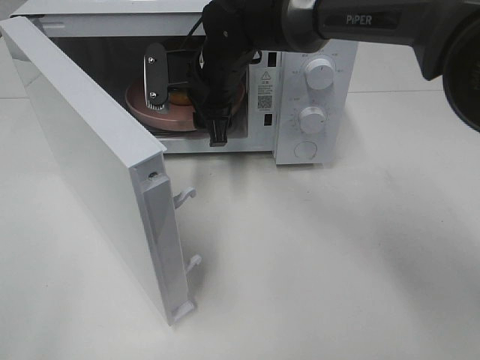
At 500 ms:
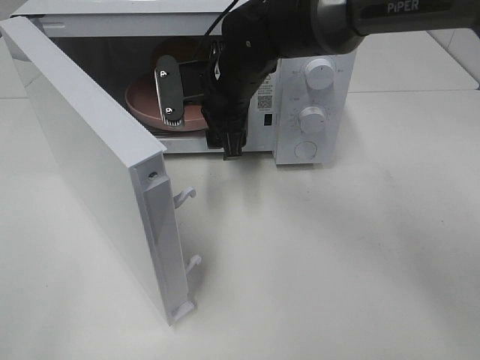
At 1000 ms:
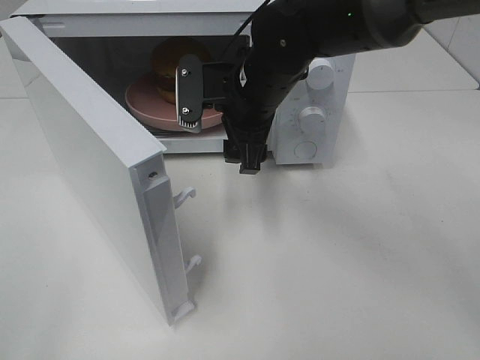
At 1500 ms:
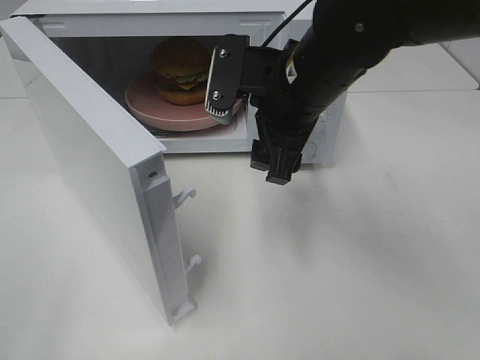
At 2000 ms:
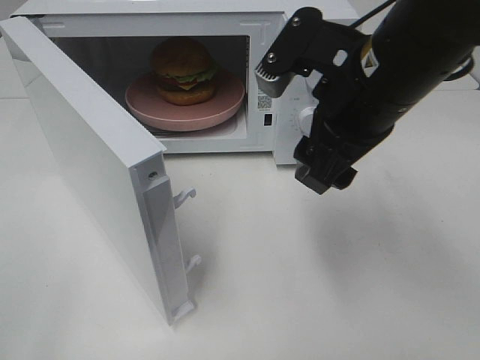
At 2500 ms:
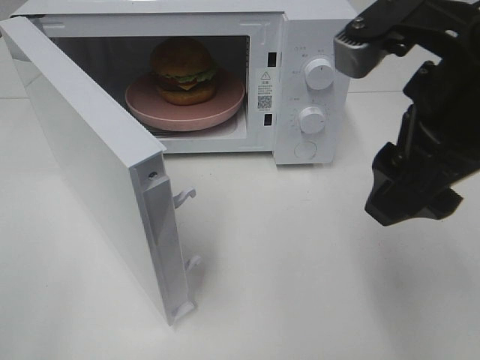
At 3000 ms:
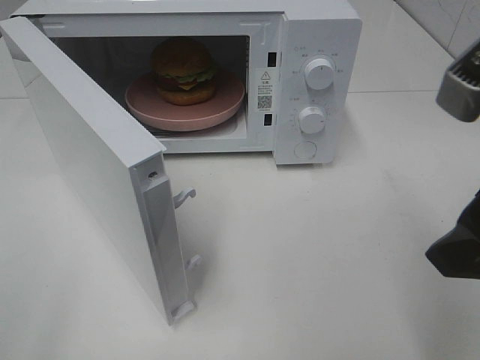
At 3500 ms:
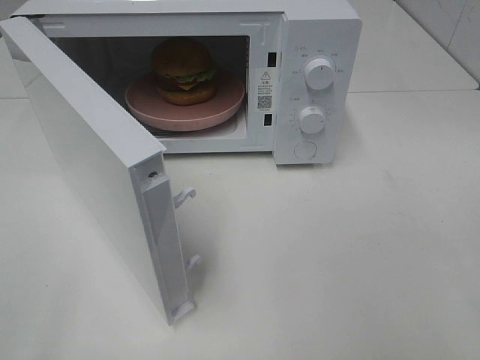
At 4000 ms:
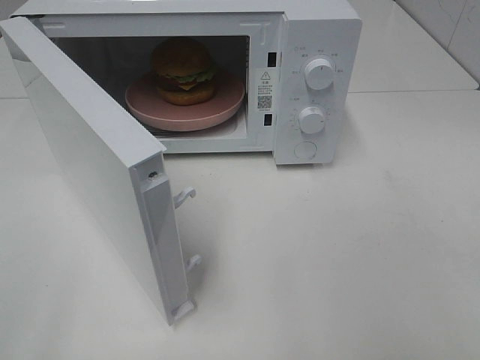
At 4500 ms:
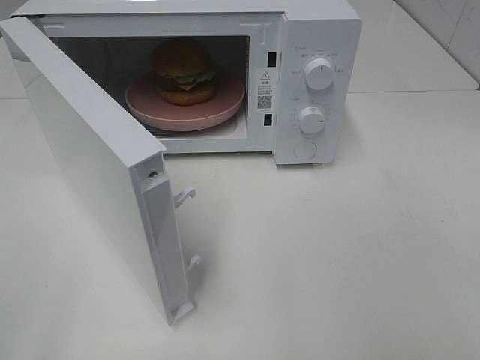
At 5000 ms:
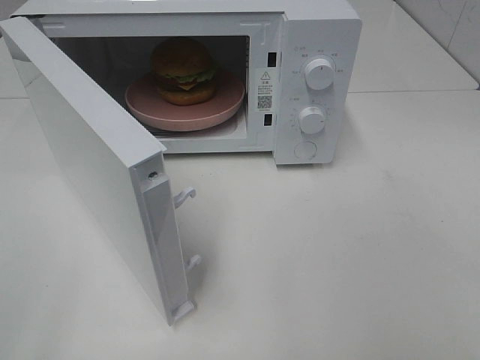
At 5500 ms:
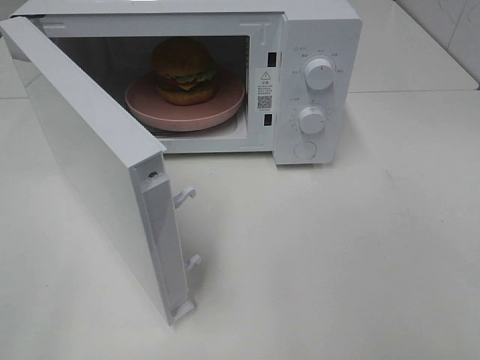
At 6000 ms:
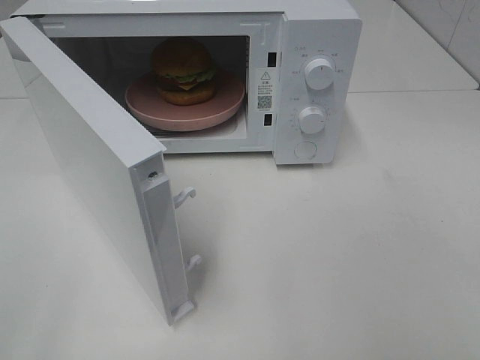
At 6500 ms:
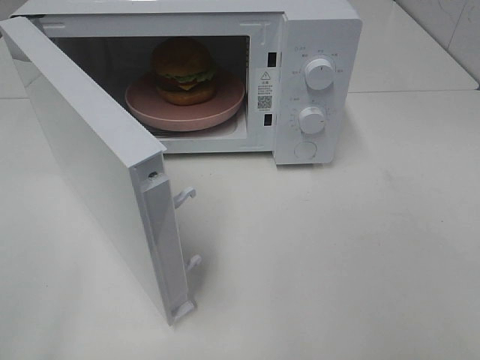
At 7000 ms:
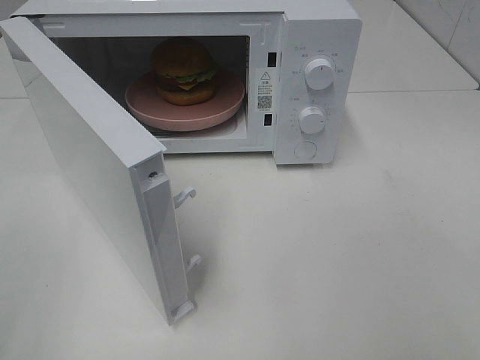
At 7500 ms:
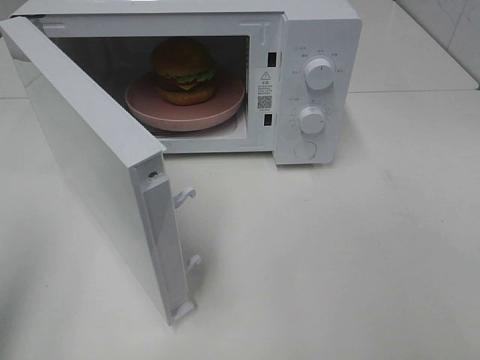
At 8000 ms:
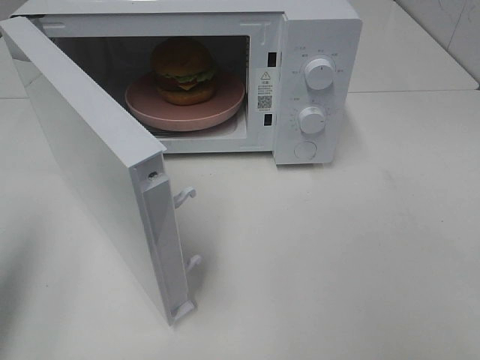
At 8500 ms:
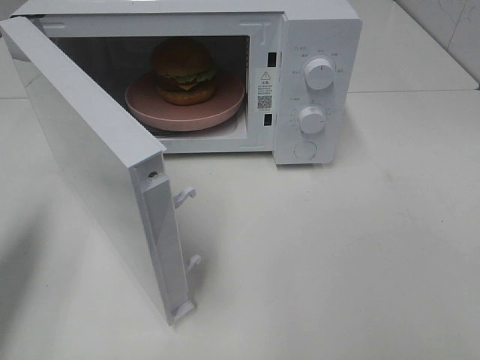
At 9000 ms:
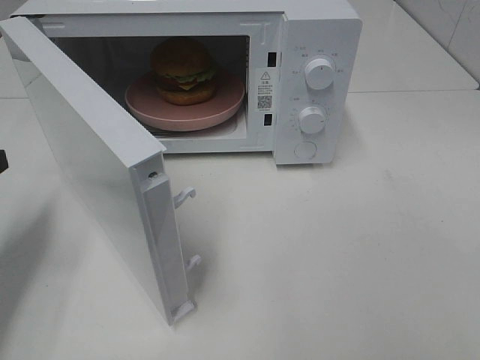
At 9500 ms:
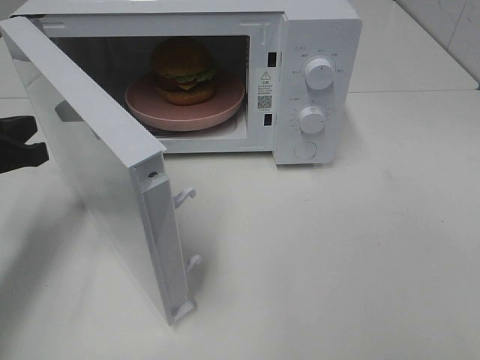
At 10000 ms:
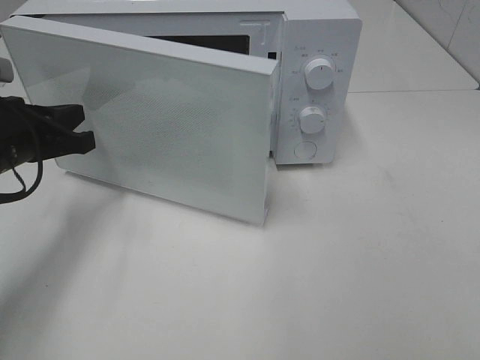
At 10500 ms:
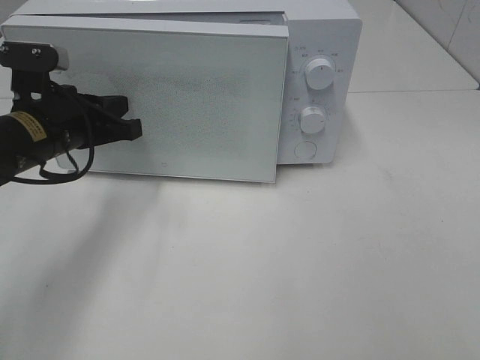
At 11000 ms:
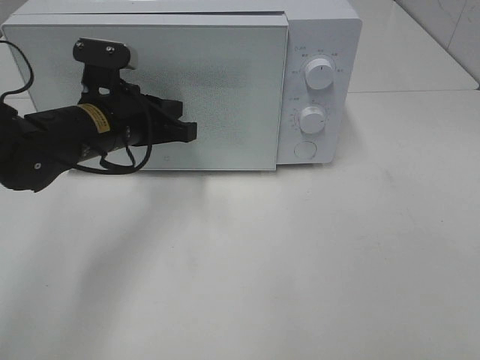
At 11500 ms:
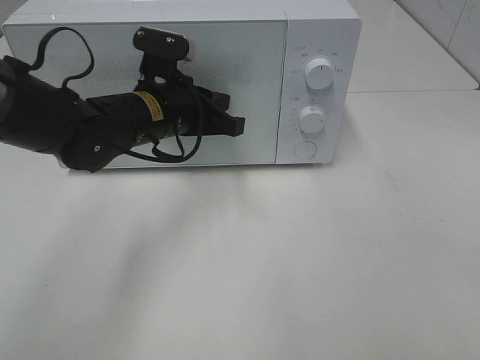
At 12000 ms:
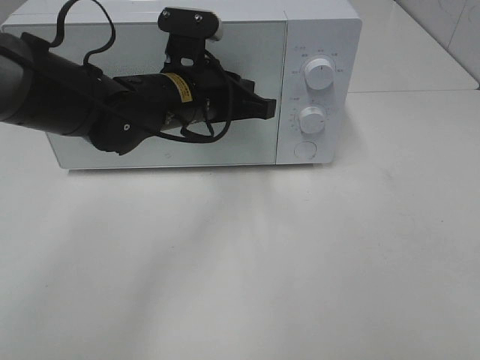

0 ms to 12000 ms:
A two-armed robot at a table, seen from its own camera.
Task of the whole recording: Heat the burger.
Step, 0 ms to 12000 ms: Left hand: close the microwave door.
0 ms to 2000 ms: The right gripper heads backward, to the right and upward, covering some 25 cm.
2000 ms to 4000 ms: The right gripper travels backward and to the right by approximately 30 cm.
6000 ms to 8000 ms: The left gripper shifts some 15 cm forward, and closes its fingers.
8000 ms to 10000 ms: The left gripper is displaced forward, downward and to the right by roughly 20 cm.
10000 ms to 12000 ms: The left gripper travels to the right by roughly 20 cm.

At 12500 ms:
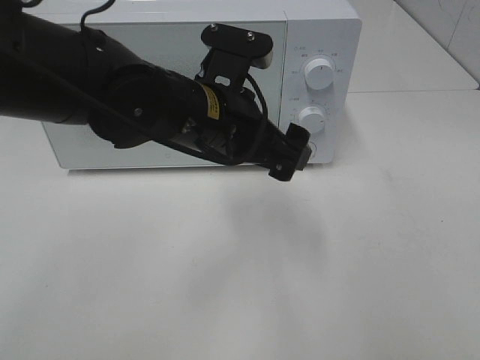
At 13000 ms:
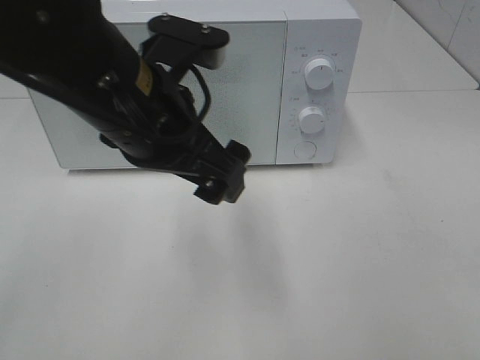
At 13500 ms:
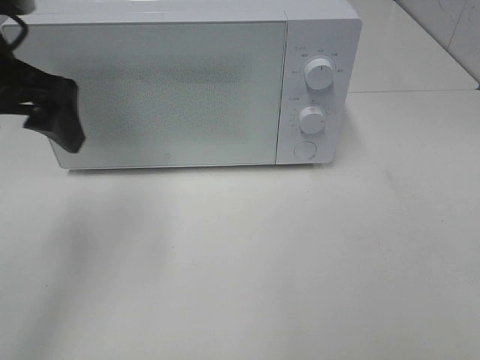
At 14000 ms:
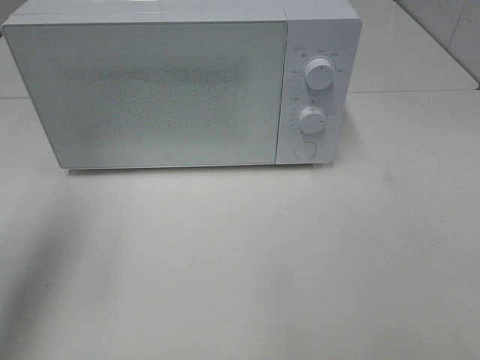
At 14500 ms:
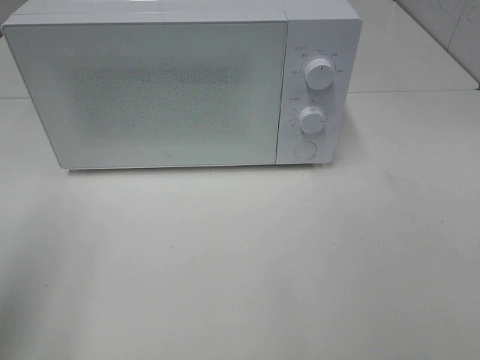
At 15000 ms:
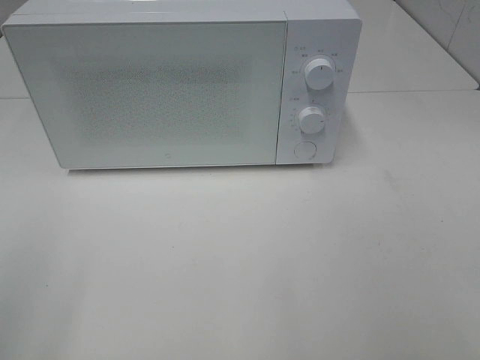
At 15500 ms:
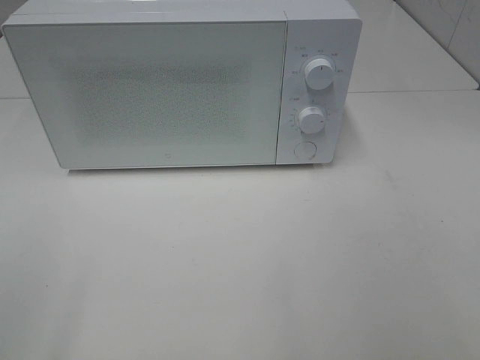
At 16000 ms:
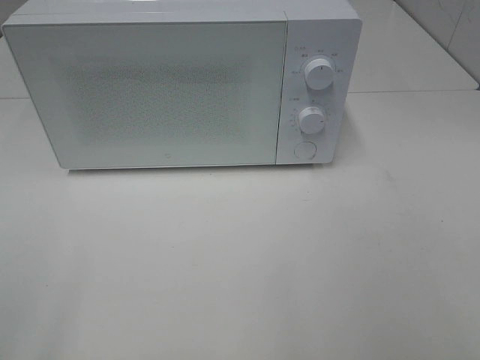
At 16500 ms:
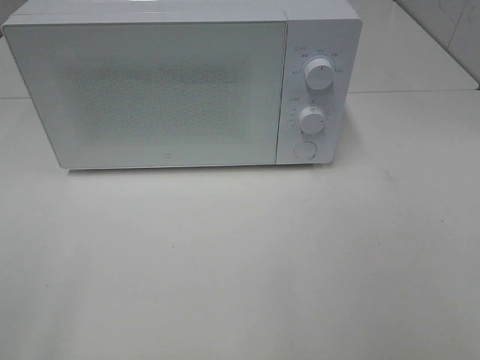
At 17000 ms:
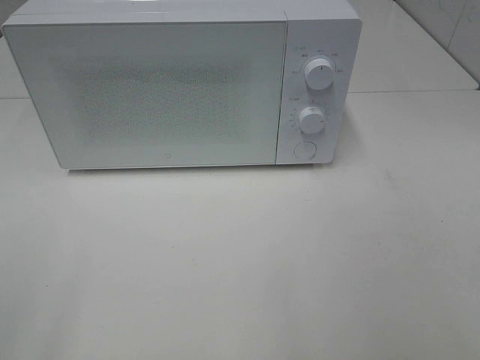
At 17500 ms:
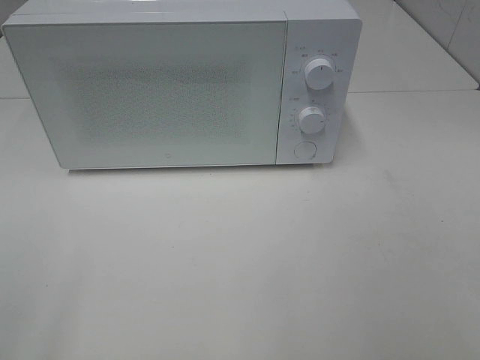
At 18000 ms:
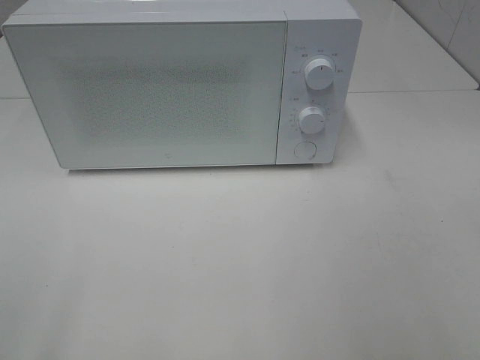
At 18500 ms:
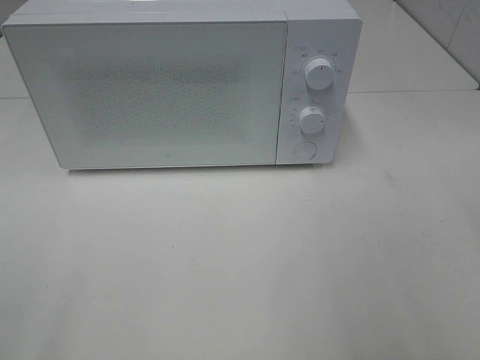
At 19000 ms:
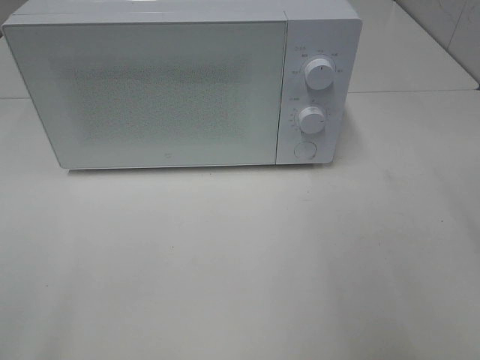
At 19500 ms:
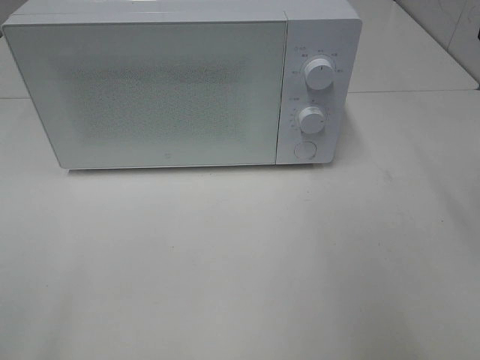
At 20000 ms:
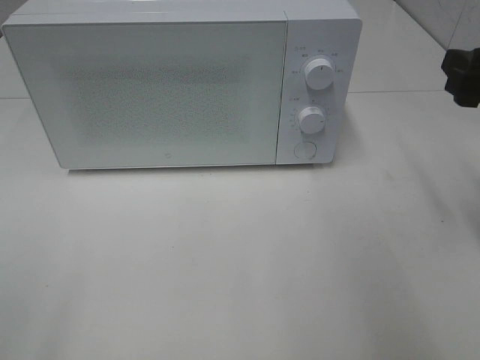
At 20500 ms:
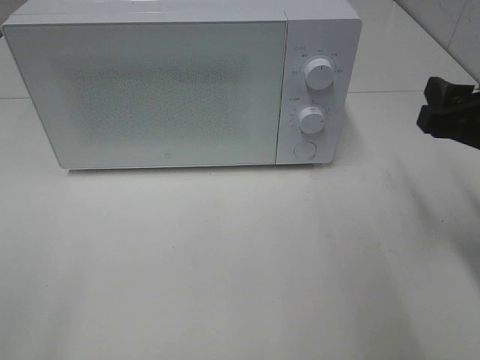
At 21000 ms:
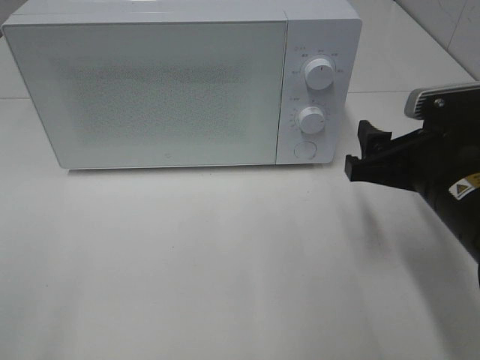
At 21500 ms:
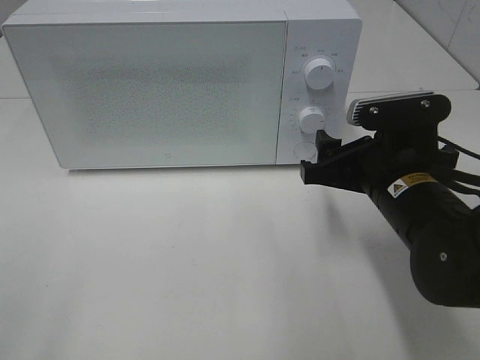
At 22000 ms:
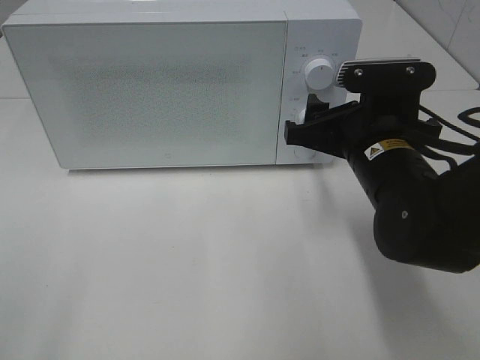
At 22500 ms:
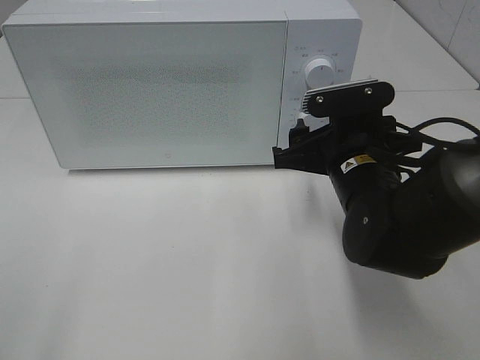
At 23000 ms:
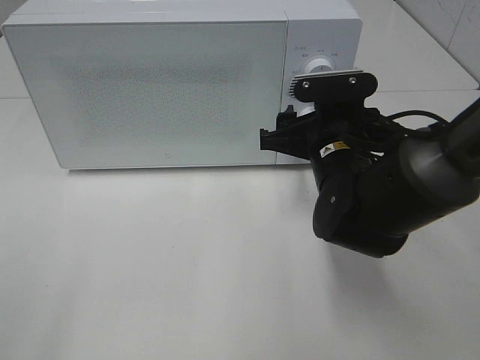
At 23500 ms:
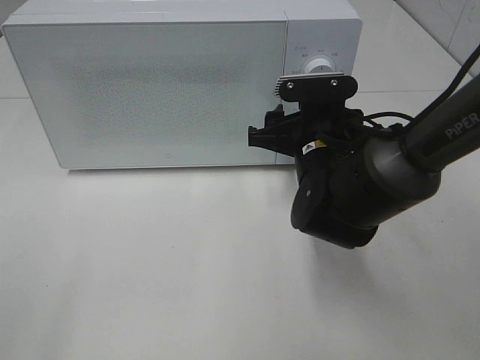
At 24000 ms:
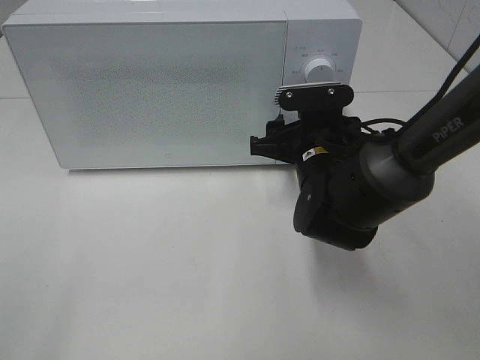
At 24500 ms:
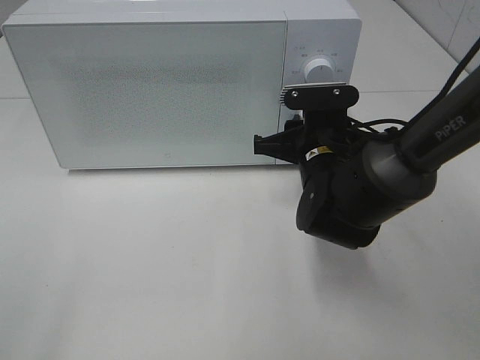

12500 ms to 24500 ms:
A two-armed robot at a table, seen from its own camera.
Task of the whole recording: Heat the burger.
12500 ms to 14500 ms: The left gripper is displaced to the left and backward by approximately 30 cm.
18500 ms to 20500 ms: The right gripper is displaced forward and downward by roughly 15 cm.
20500 ms to 22500 ms: The right gripper shifts roughly 15 cm to the left and downward.
22500 ms to 24500 ms: The right gripper changes place by approximately 5 cm, and closes up.

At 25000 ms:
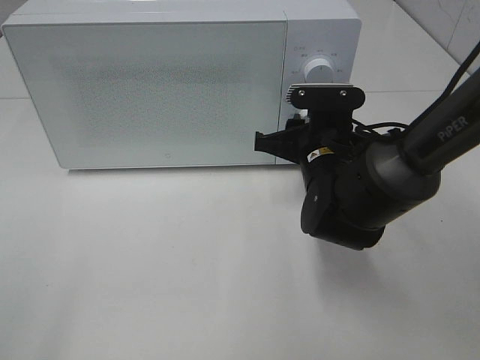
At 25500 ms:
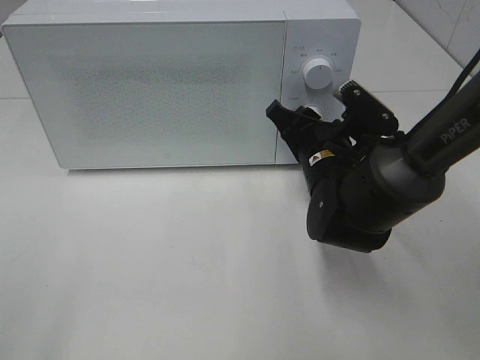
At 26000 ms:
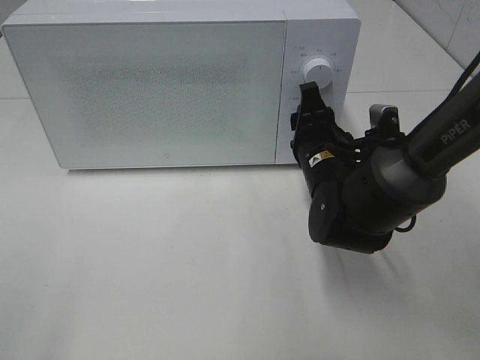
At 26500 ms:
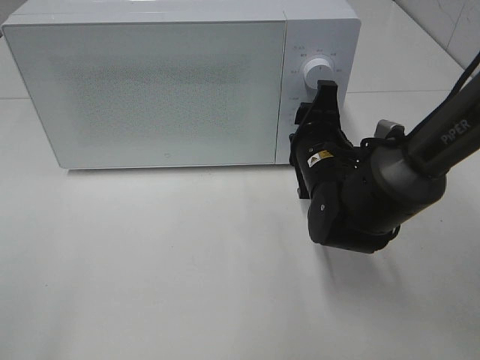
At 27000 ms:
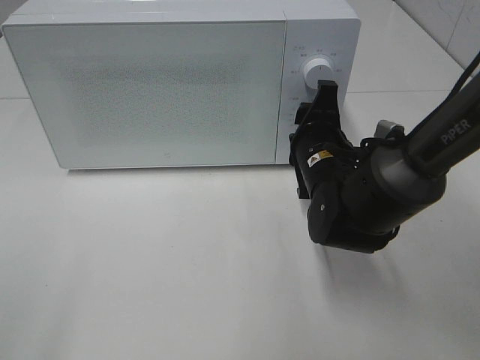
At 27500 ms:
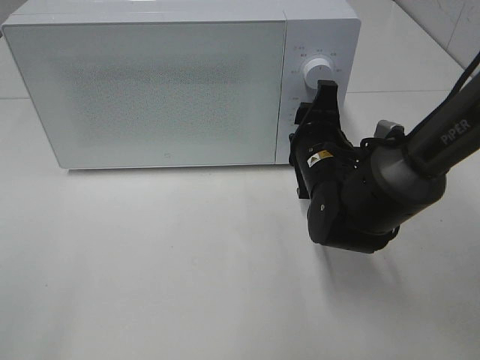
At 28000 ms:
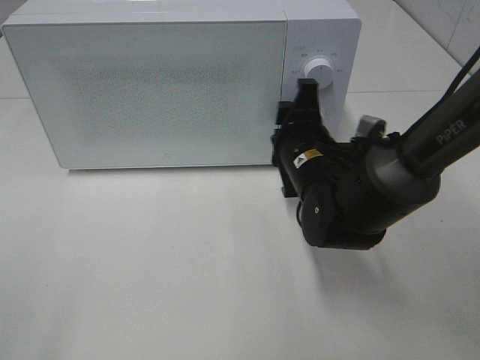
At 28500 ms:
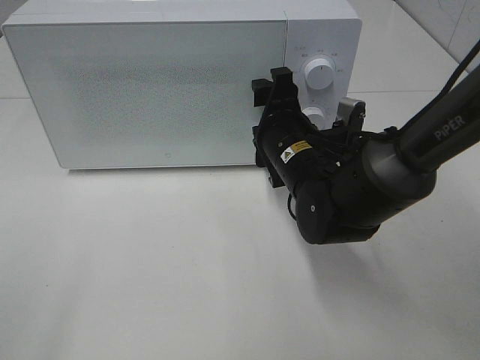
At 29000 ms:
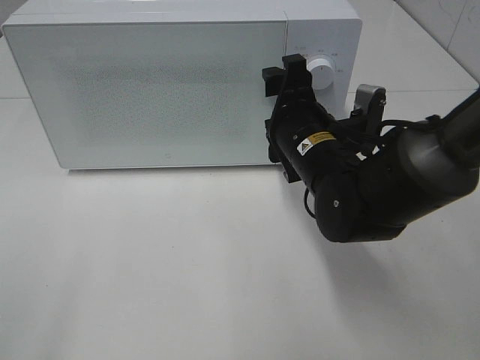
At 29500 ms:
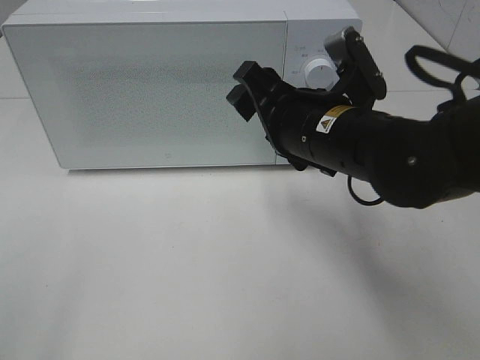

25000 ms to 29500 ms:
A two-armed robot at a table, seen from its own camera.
Task of the whole recording: Heat the burger.
Step, 25000 ms to 28000 ms: Right hand: twist timer button.
27000 ms to 29500 ms: The right gripper travels upward and backward by roughly 10 cm.
